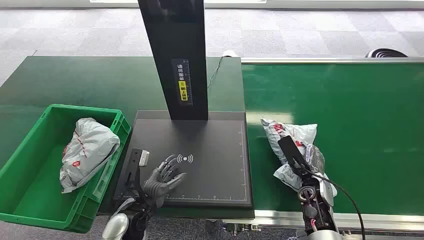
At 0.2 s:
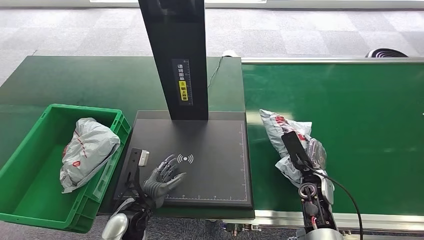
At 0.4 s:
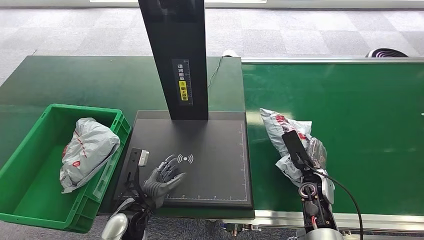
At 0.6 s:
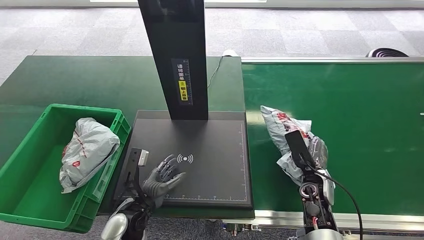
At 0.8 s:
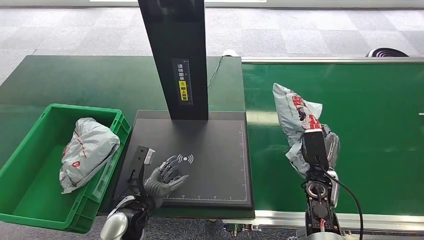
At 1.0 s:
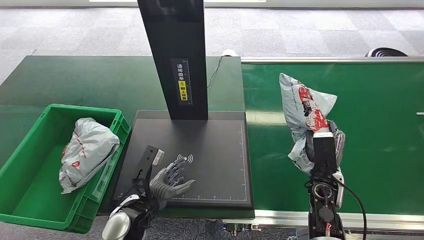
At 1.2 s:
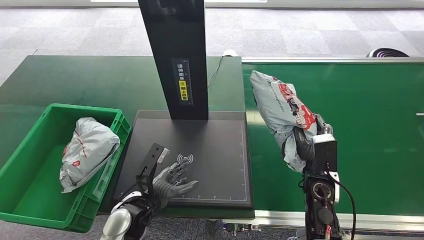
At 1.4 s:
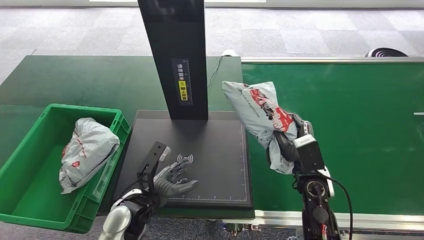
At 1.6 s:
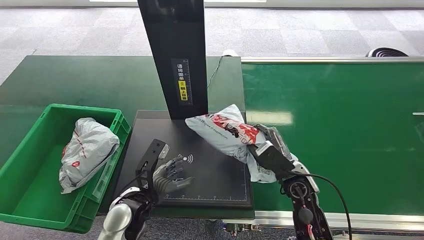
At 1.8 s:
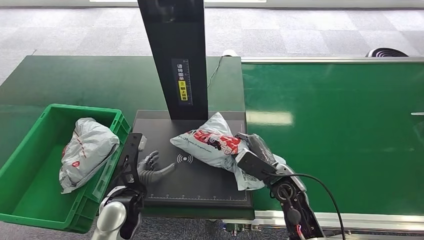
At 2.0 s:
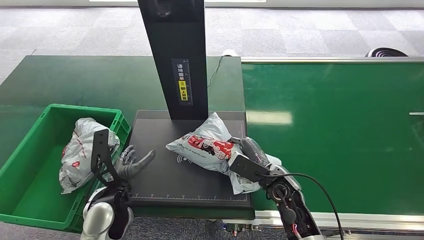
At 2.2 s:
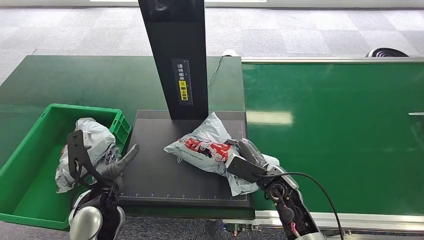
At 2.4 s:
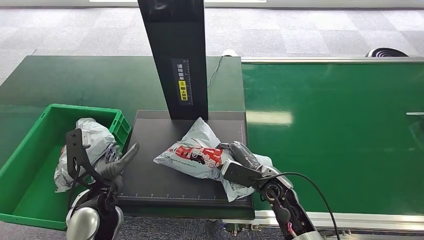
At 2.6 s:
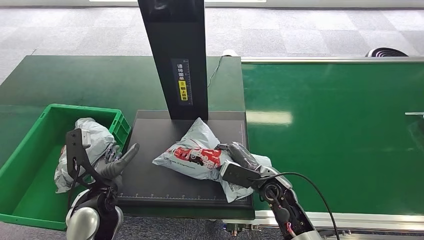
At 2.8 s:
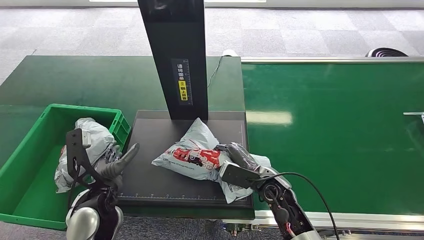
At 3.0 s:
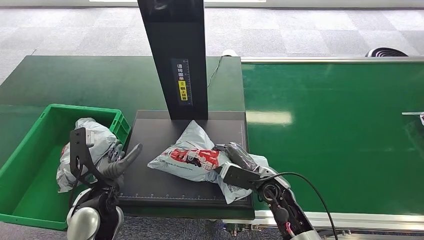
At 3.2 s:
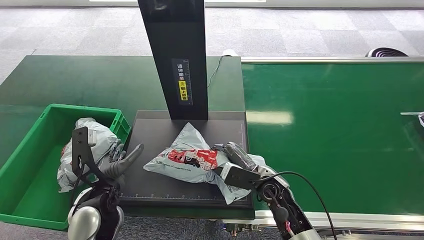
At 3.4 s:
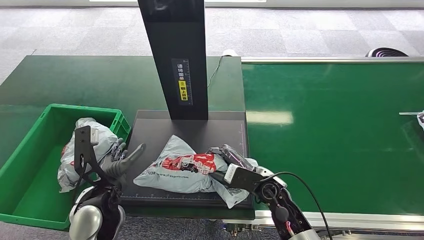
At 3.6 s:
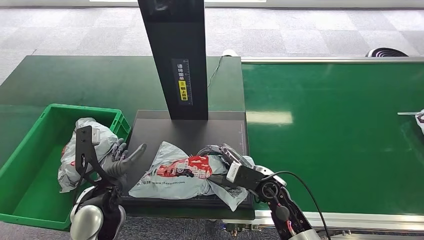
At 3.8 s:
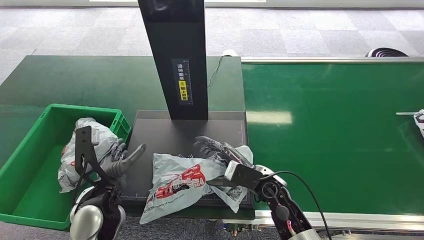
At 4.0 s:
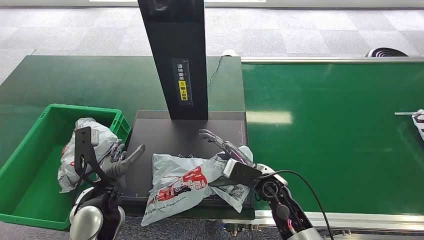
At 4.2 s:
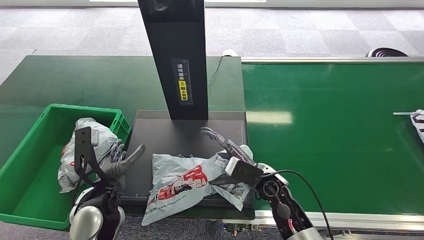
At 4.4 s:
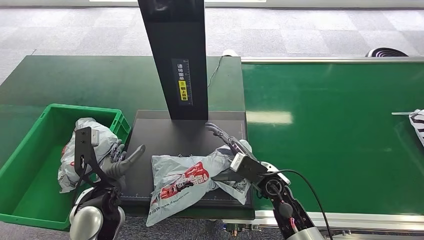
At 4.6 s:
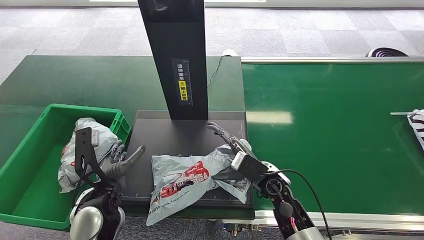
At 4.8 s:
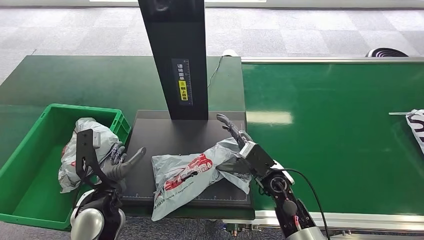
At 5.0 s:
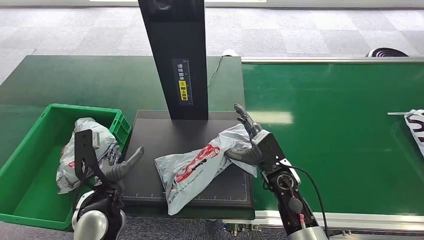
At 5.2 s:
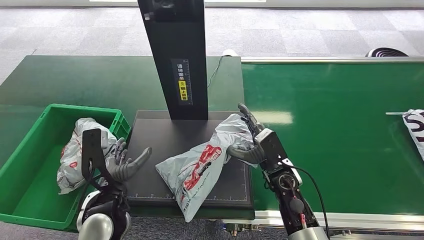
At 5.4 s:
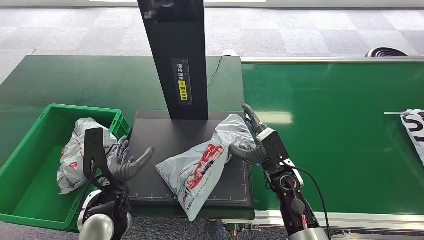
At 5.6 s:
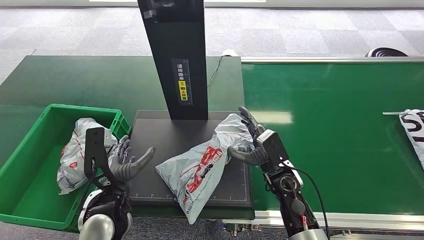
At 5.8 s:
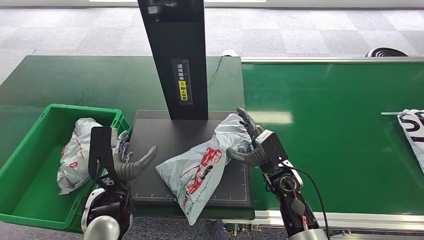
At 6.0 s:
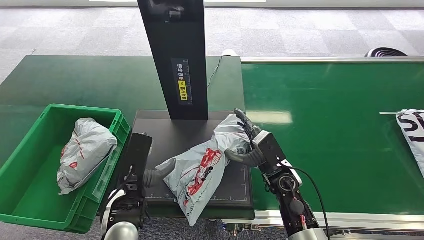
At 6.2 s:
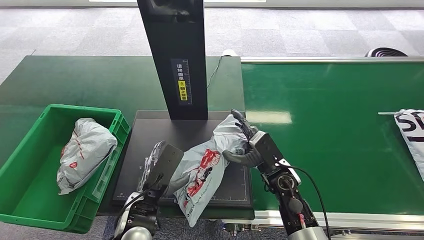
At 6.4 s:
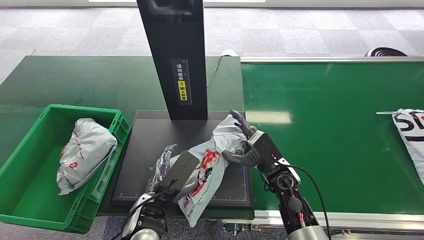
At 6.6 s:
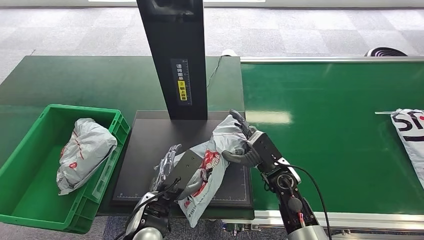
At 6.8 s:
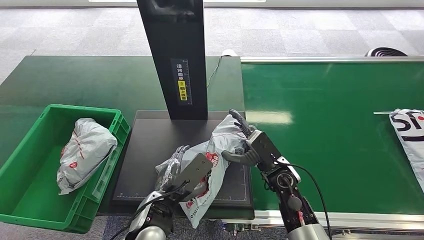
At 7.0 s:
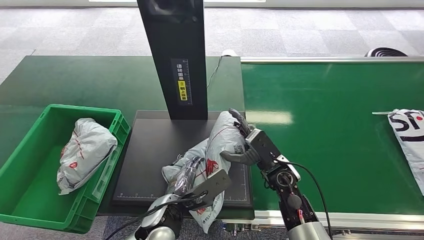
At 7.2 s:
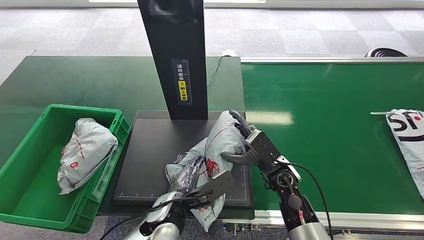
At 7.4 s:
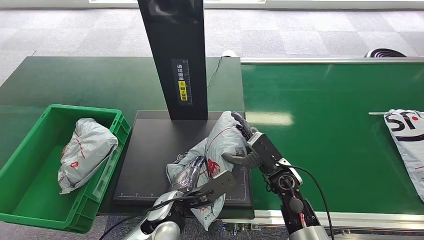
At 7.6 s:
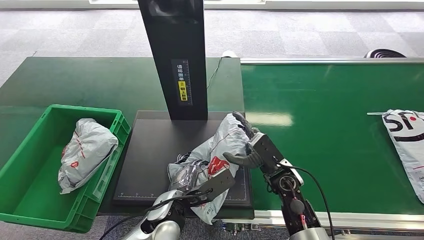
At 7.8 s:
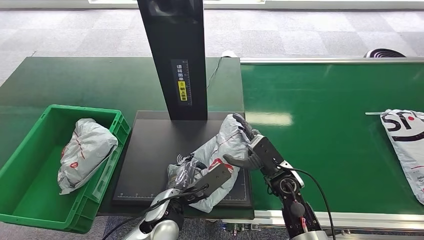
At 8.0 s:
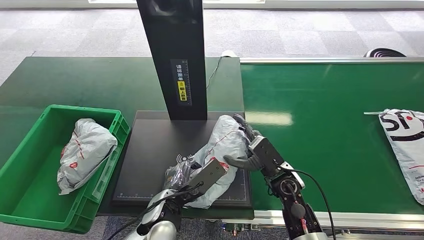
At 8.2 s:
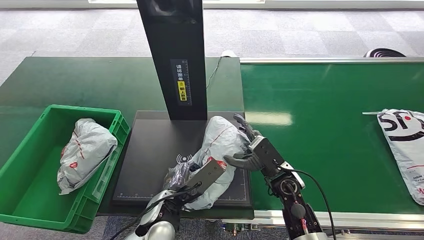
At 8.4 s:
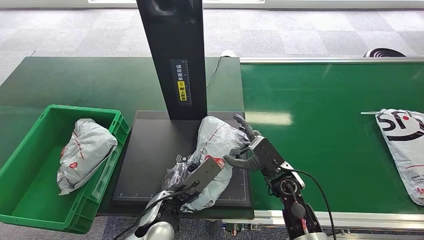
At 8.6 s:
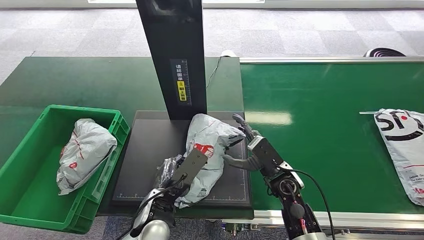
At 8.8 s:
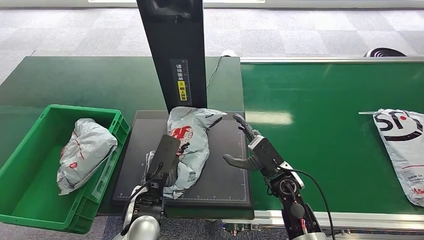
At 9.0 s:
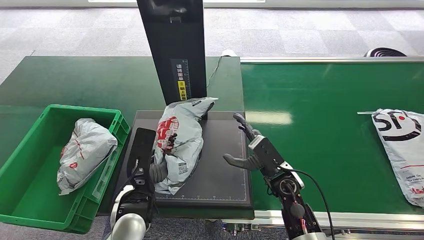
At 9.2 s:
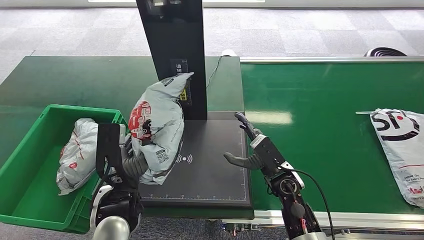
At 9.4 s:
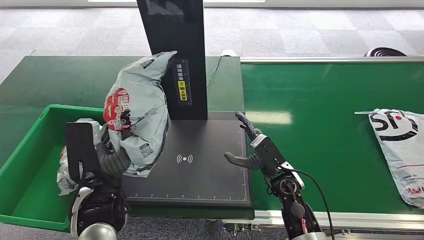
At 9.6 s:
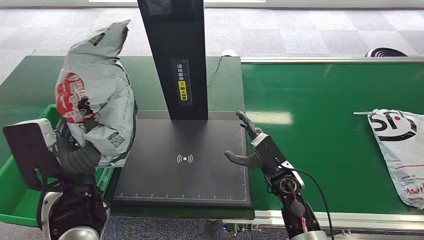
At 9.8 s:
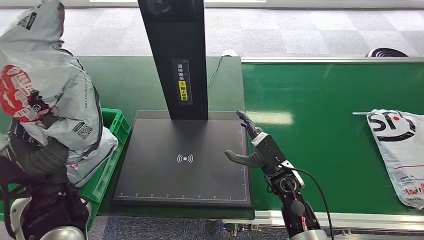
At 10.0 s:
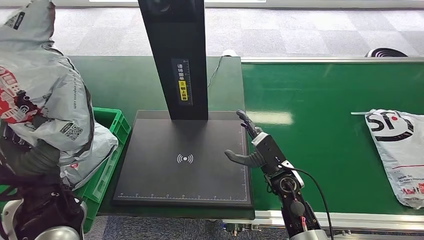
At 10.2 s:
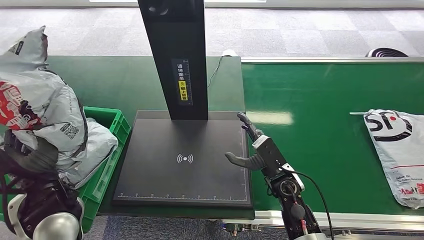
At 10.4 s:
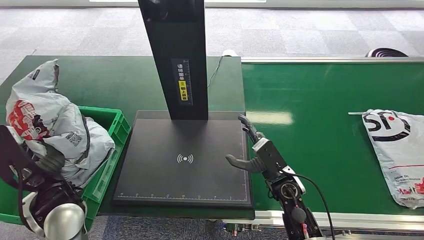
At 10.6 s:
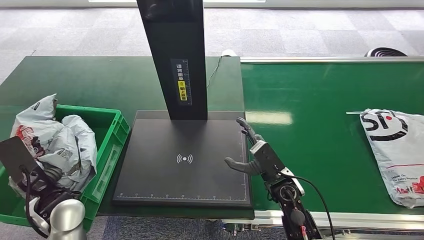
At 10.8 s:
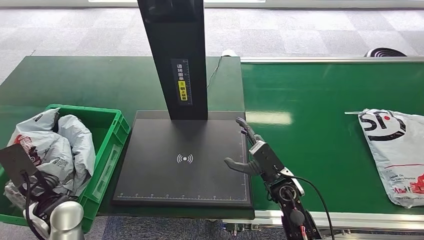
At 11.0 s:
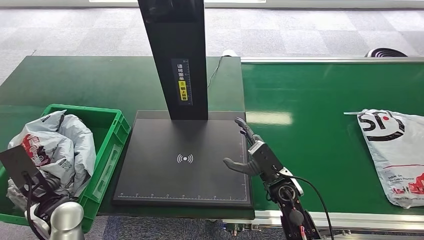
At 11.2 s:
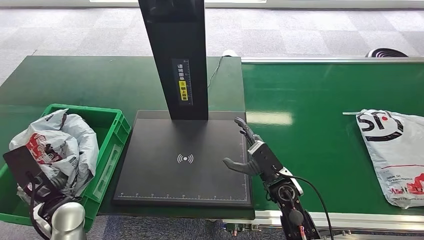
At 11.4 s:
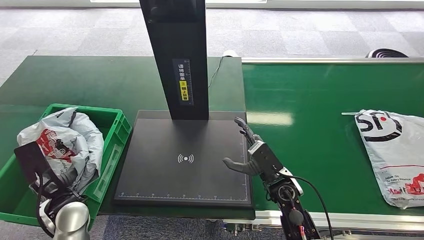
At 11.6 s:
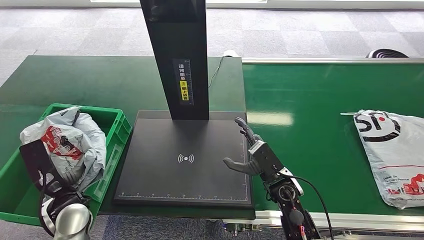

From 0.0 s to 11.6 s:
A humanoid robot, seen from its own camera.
Step, from 0.0 s to 0.2 s: Pick up the package from the conveyor belt.
Step, from 4.0 s to 4.2 s: Place the package onto the inbound machine.
Step, from 9.4 s to 9.6 s: Pick up the package from the inbound machine.
From 1.4 s to 2.8 s: The left hand travels upward and to the left by about 10 cm, while the right hand goes some 10 cm to the left.
From 2.8 s to 4.4 s: The hands make only small movements.
From 5.8 s to 7.2 s: The left hand moves to the right and downward, approximately 15 cm.
From 7.2 s to 8.8 s: The left hand ends up about 5 cm from where it was.
